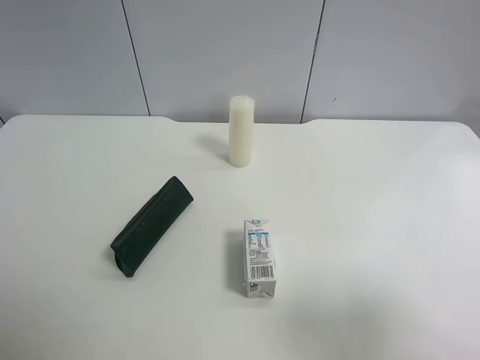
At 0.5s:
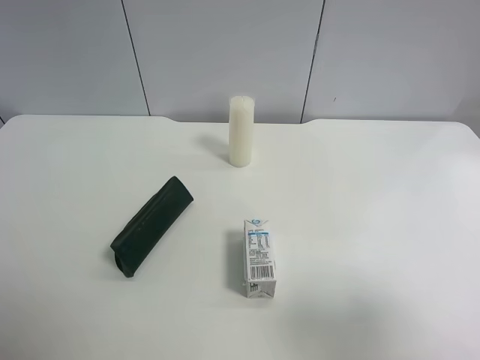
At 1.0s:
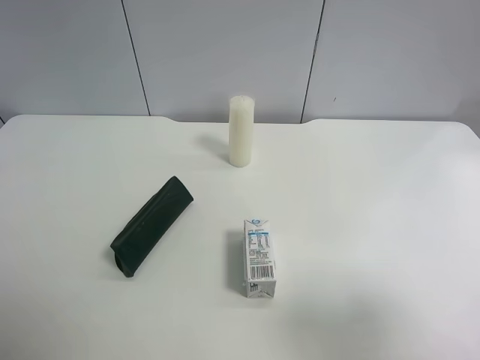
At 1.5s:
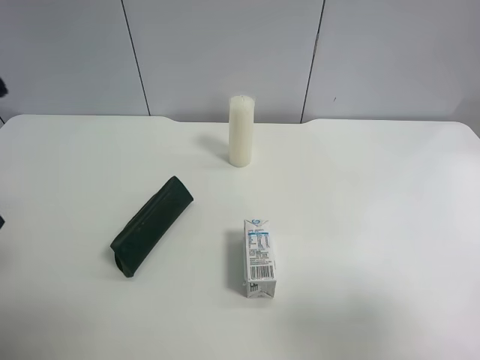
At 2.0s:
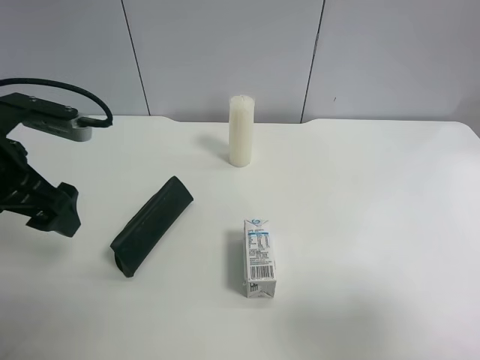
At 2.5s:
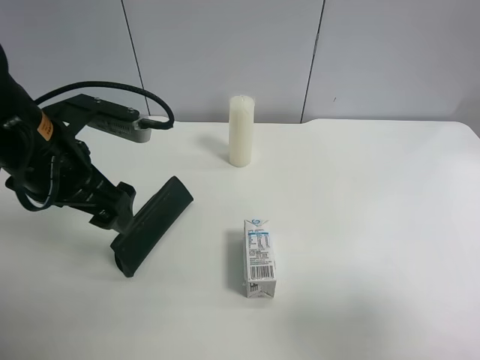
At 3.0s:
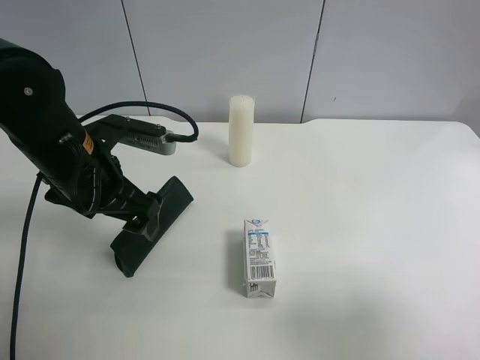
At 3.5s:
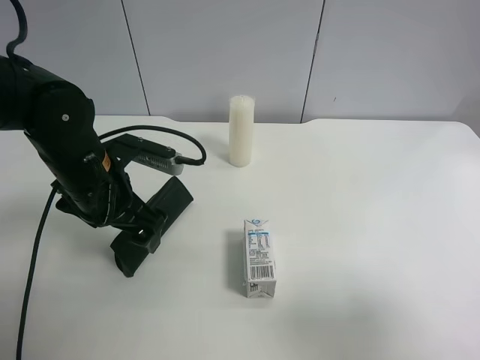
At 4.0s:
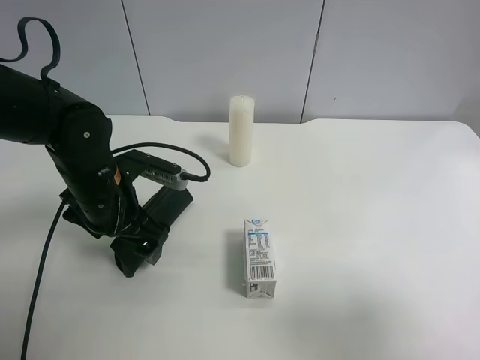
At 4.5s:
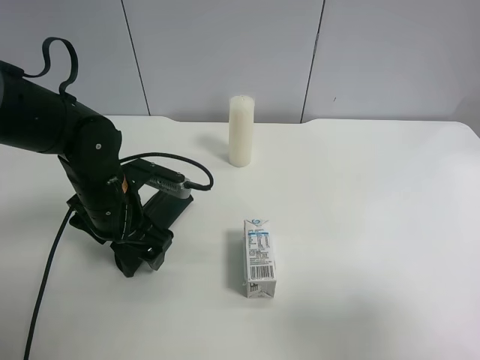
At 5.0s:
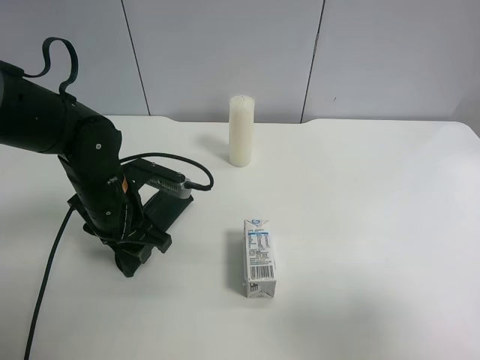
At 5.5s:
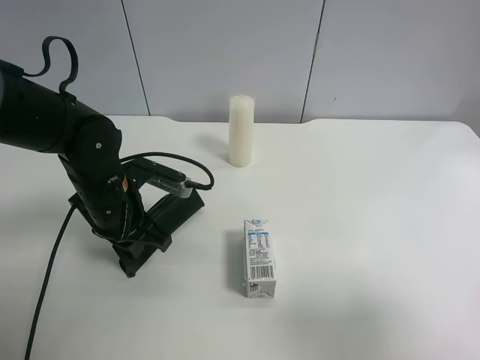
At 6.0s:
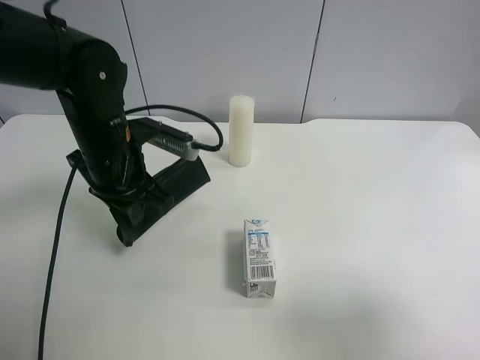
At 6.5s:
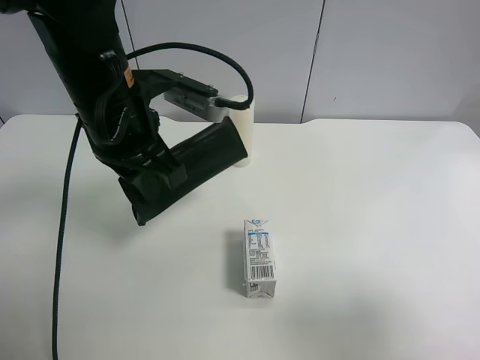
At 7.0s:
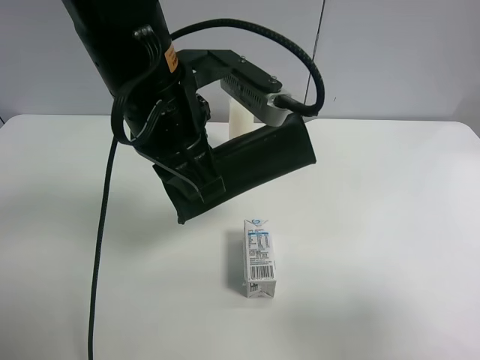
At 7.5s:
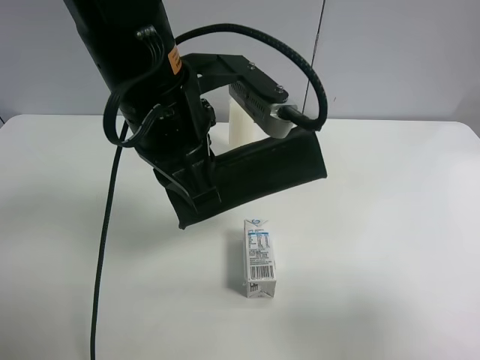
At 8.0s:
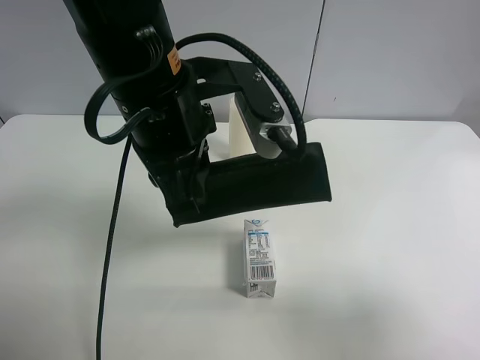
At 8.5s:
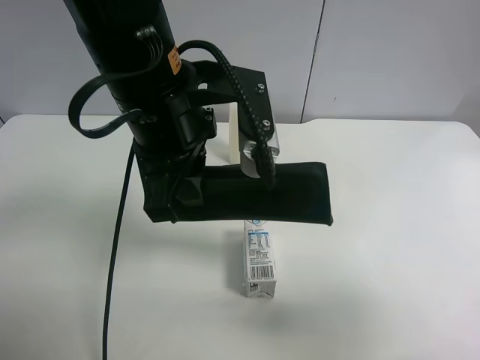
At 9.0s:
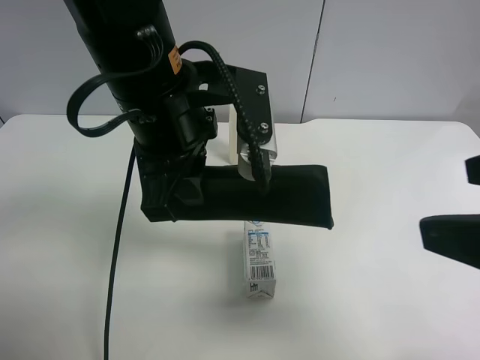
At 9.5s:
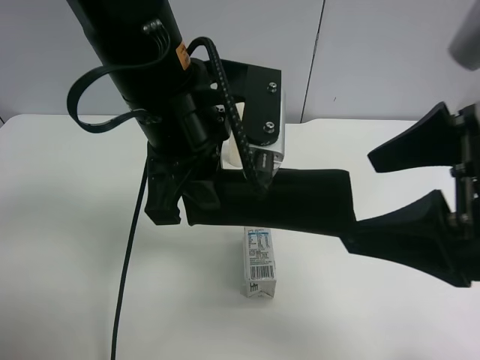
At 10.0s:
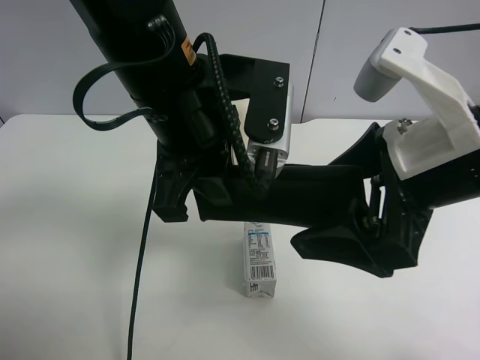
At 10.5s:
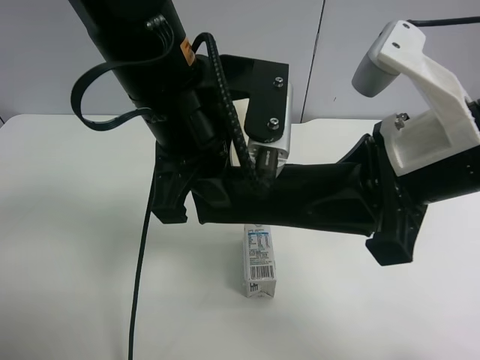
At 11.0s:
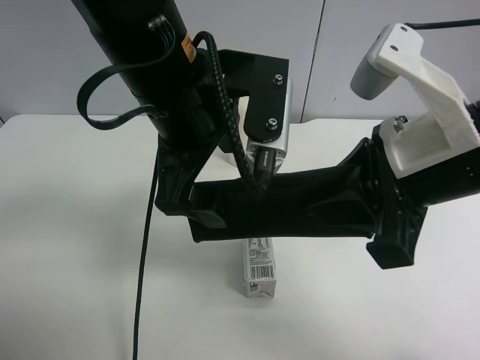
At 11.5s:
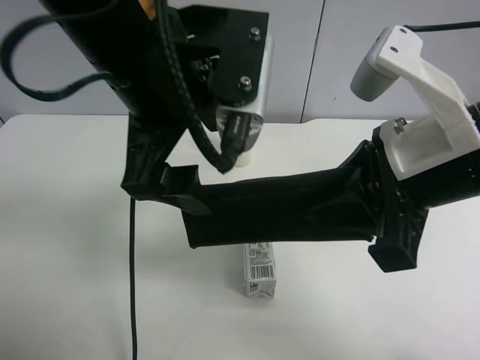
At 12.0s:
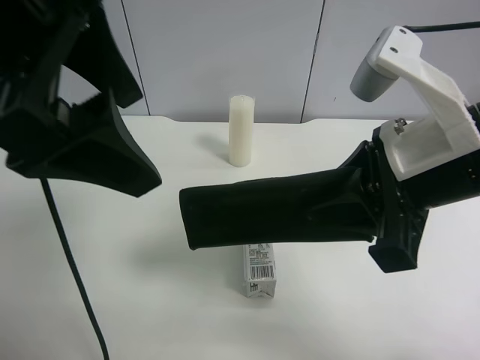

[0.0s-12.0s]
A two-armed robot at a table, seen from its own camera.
Task of the whole recording: use the left gripper to pick up the item and transfer it from the left gripper to the right gripper.
0.0s to 2.0s: The left gripper heads forward, covering approximately 20 cm.
2.0s to 4.0s: The left gripper travels downward and to the right by approximately 15 cm.
4.0s to 6.0s: The left gripper changes place by approximately 5 cm, and closes up.
6.0s to 8.0s: The left gripper shifts about 15 cm upward, to the right and backward.
8.0s to 10.0s: The right gripper shifts about 20 cm forward and to the left.
10.0s to 12.0s: The left gripper shifts approximately 15 cm upward, to the left and backward, and opens; the right gripper closes its fingers.

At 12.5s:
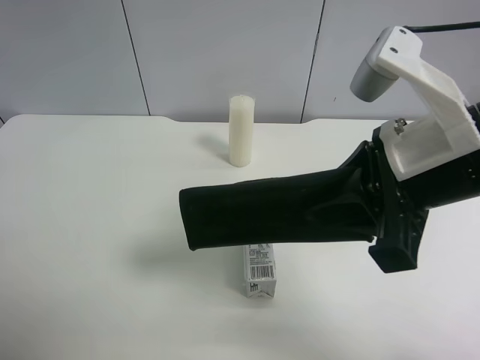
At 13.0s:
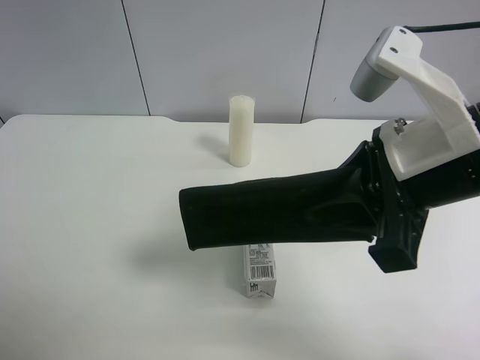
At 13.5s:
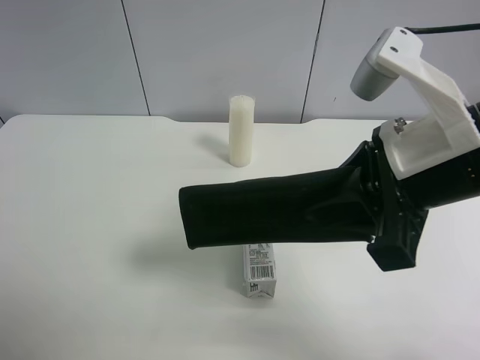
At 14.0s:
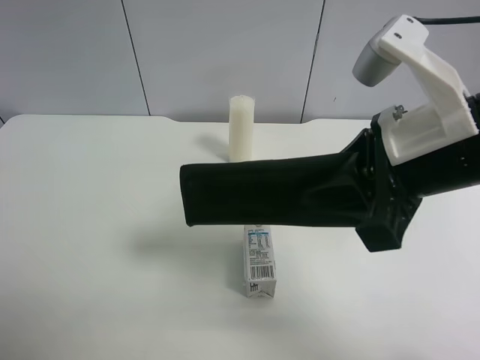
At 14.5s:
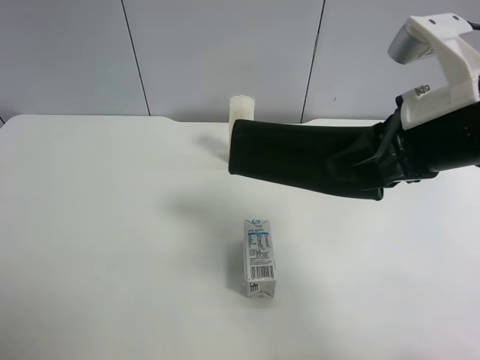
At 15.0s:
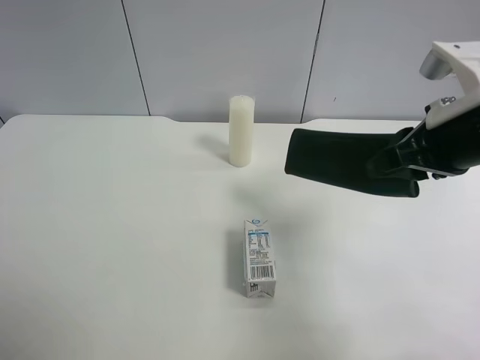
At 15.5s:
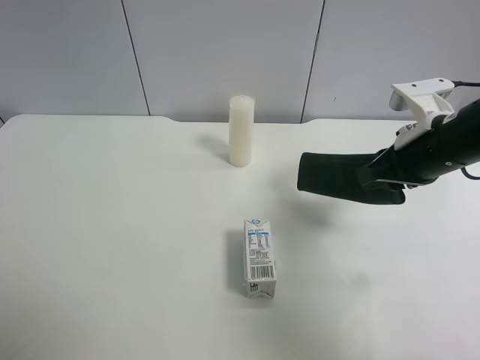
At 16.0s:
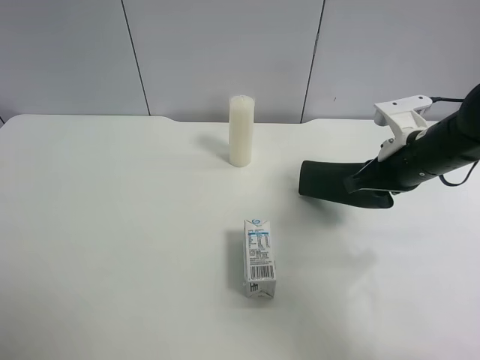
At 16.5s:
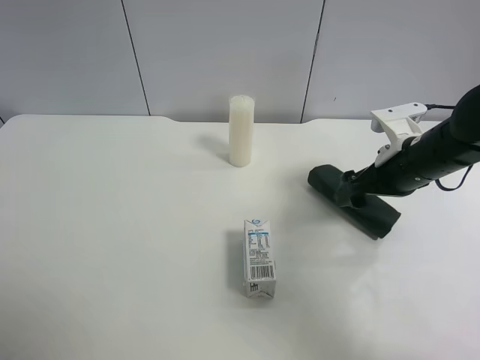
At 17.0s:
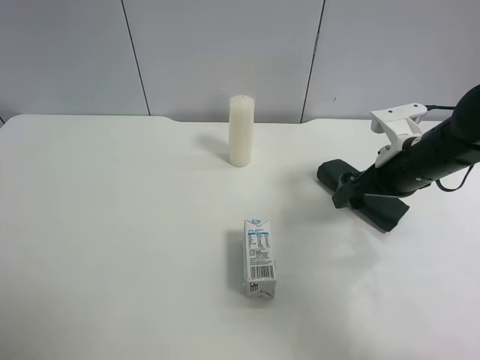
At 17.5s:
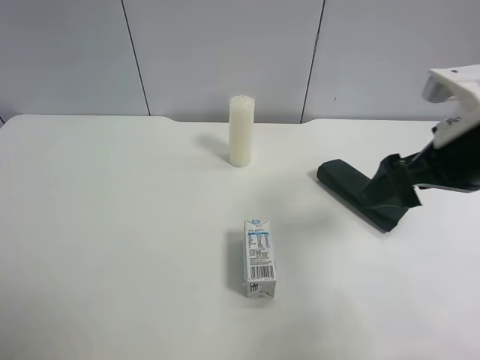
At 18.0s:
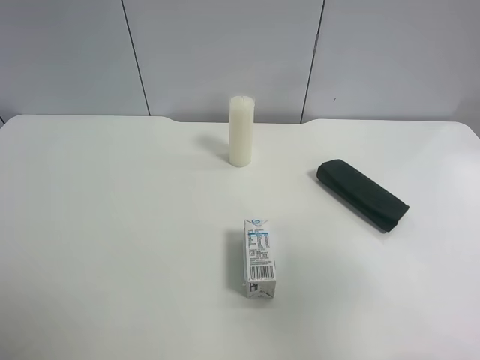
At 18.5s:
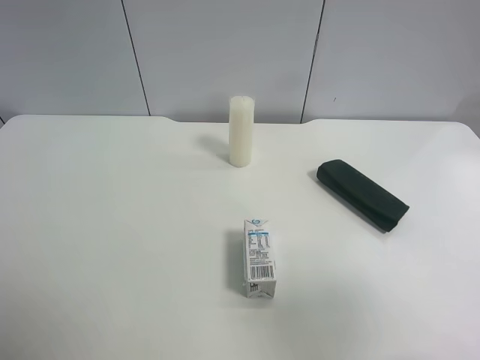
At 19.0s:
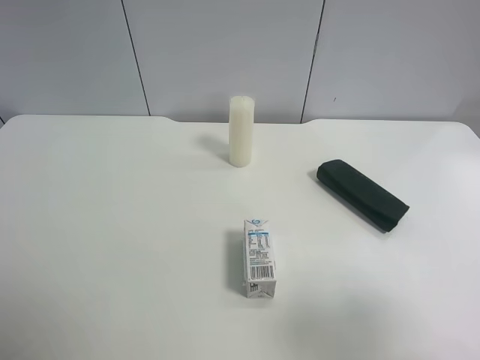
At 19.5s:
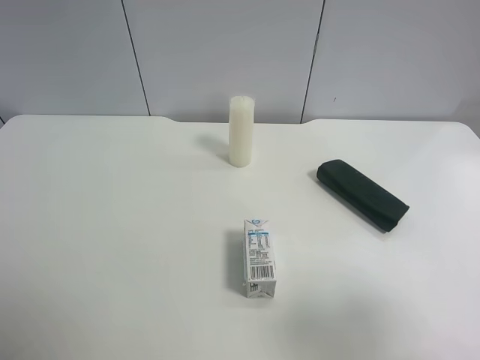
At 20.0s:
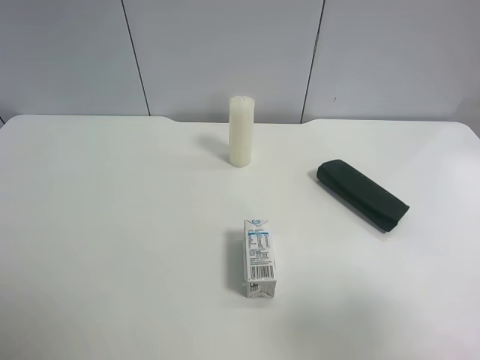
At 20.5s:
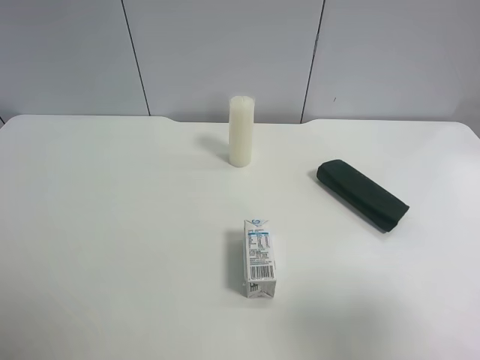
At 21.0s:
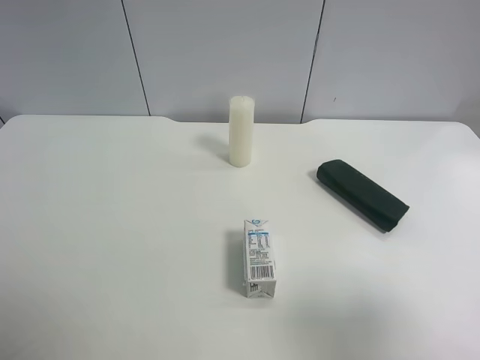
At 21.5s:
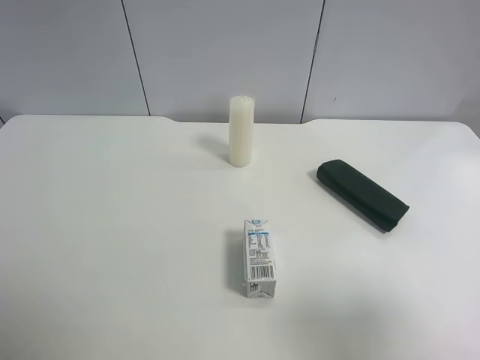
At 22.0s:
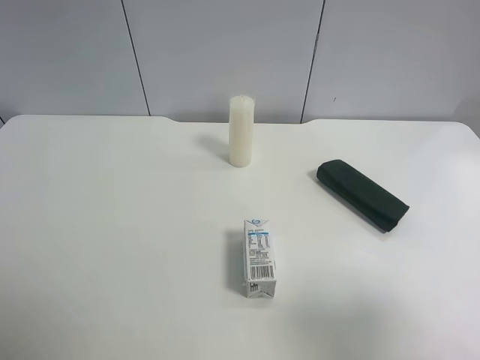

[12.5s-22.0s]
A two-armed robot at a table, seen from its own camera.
Task of the whole recording: use the left gripper to pick up the item and transfer it from the left gripper to the right gripper.
12.5s to 14.5s: The left gripper travels downward, to the left and backward by about 15 cm.
14.5s to 16.5s: The right gripper moves downward, forward and to the right, about 15 cm, and opens up.
16.5s to 18.0s: The right gripper travels backward and upward by about 30 cm.
18.0s to 20.0s: The right gripper moves backward, approximately 5 cm.

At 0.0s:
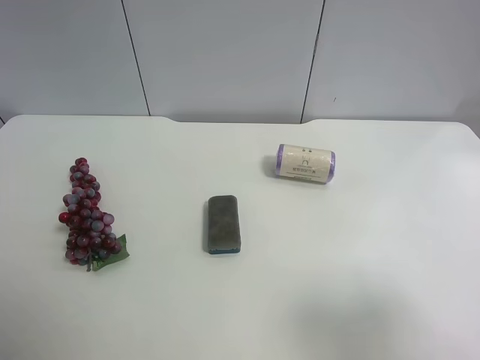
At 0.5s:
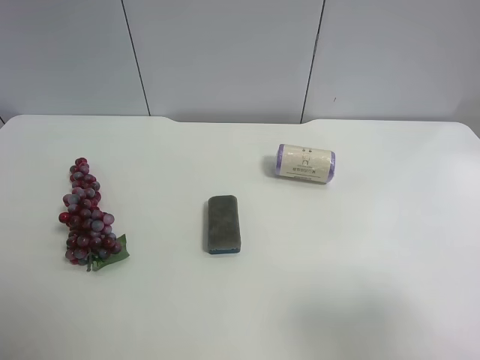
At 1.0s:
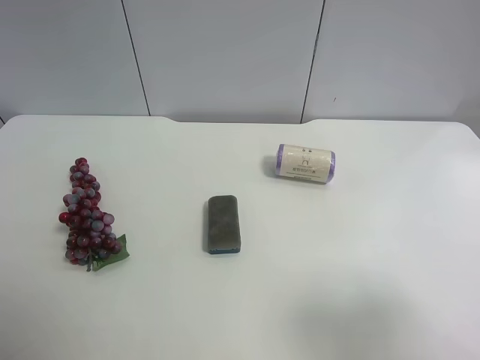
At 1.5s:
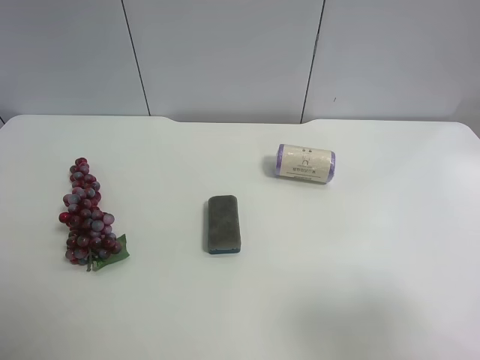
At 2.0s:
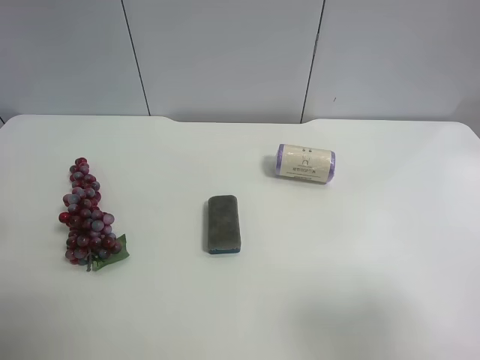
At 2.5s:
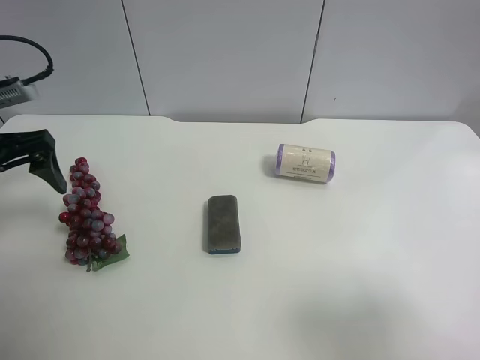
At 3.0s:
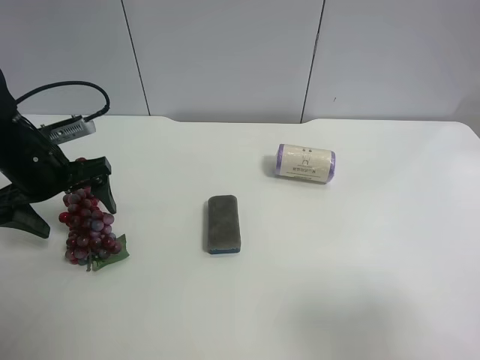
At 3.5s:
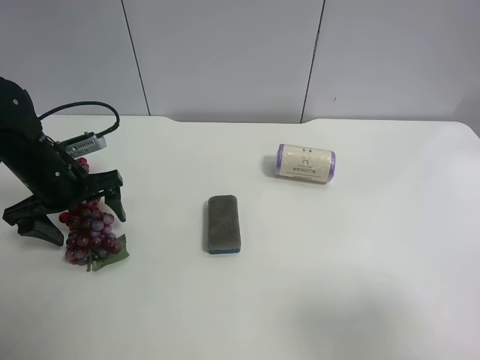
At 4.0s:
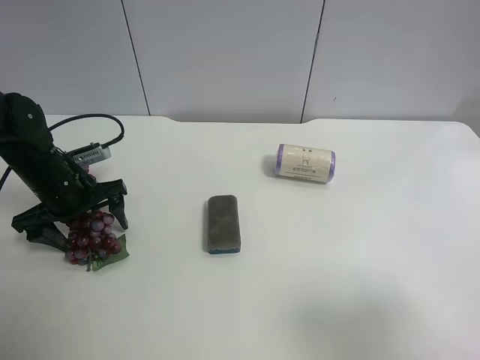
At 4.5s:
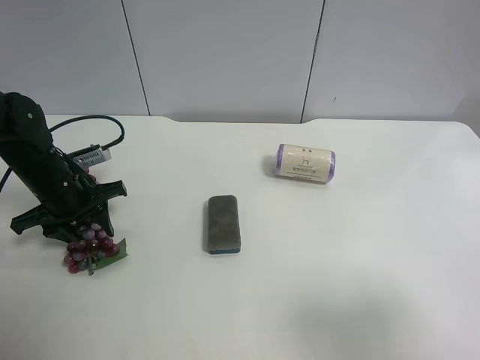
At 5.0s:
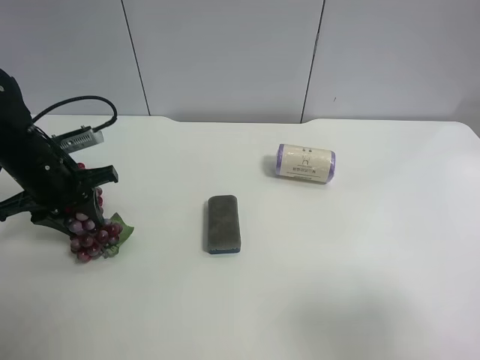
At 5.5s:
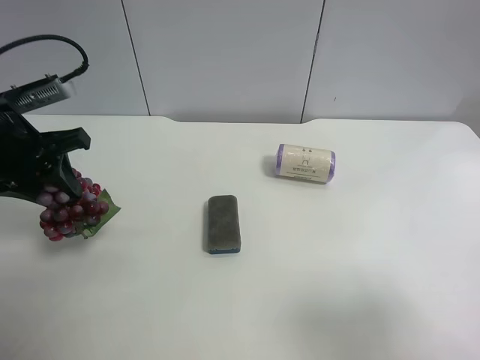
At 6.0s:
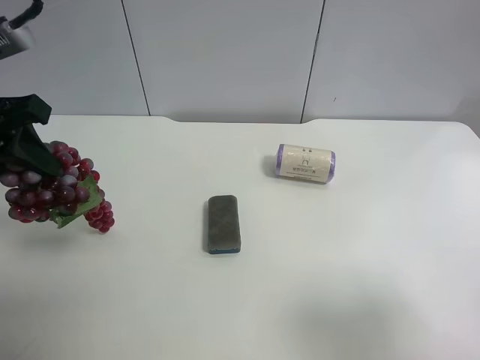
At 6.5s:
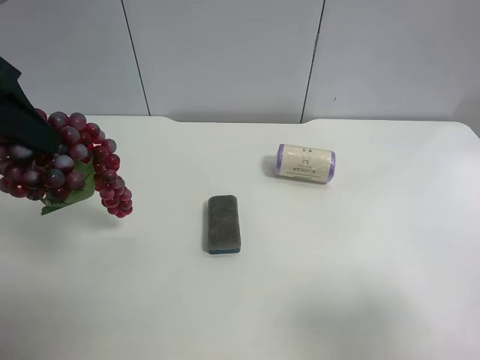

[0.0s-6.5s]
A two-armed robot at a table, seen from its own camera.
Task of the whole recording: use the left gripper to pick up the item and transfer it from the left gripper to the right gripper.
2.0s to 4.5s: The left gripper goes about 25 cm downward and forward, and closes up.
4.5s to 6.5s: The left gripper heads upward, covering roughly 25 cm.
